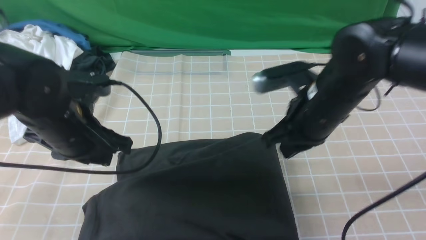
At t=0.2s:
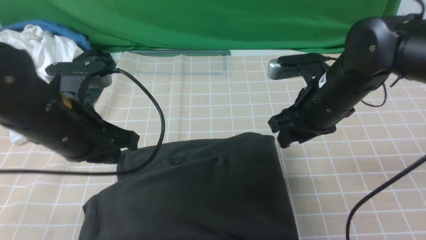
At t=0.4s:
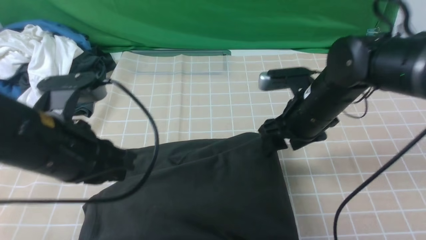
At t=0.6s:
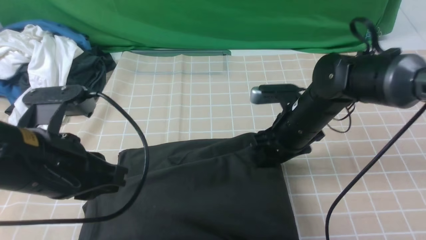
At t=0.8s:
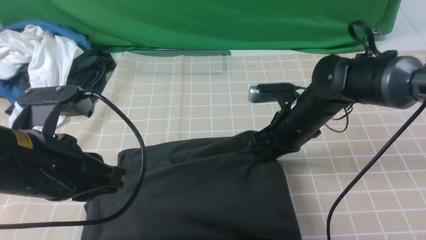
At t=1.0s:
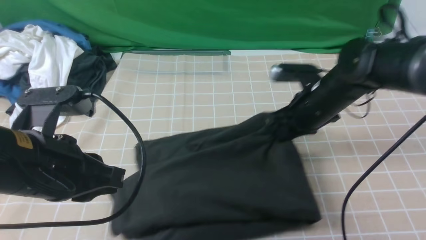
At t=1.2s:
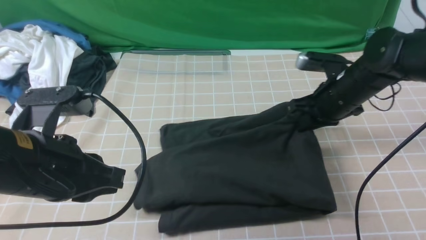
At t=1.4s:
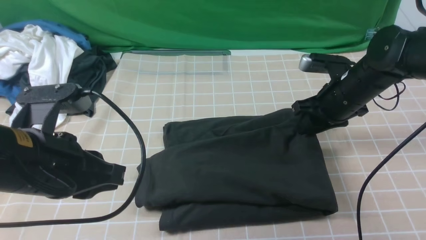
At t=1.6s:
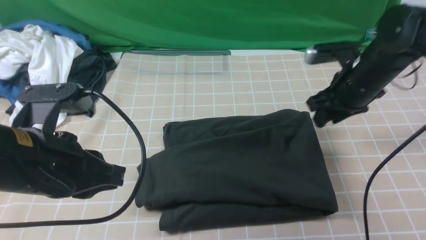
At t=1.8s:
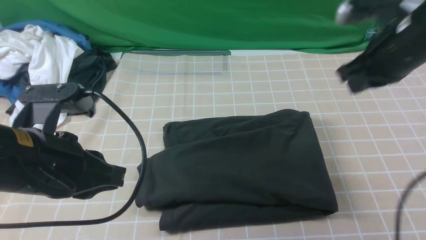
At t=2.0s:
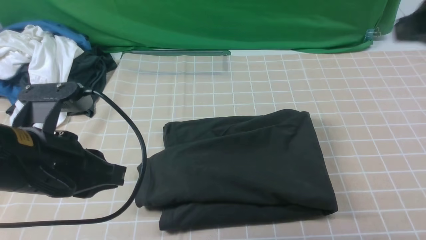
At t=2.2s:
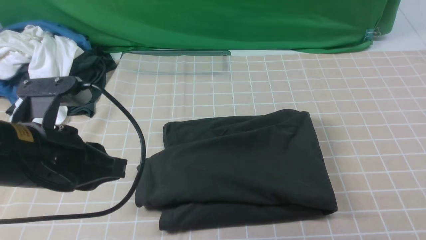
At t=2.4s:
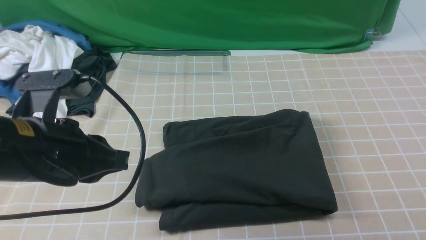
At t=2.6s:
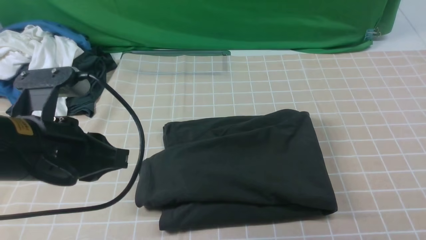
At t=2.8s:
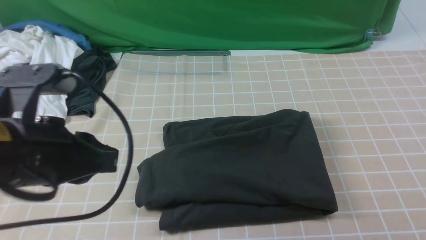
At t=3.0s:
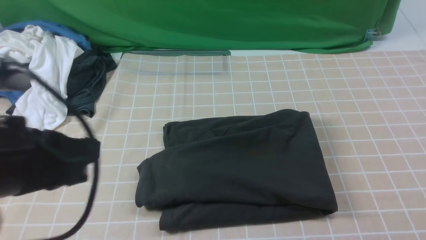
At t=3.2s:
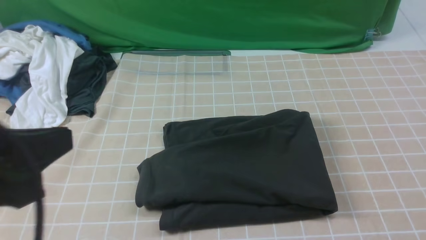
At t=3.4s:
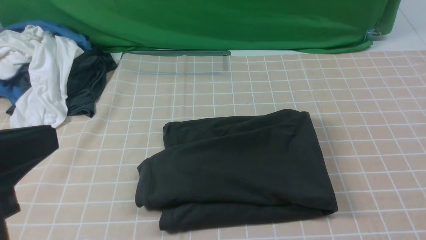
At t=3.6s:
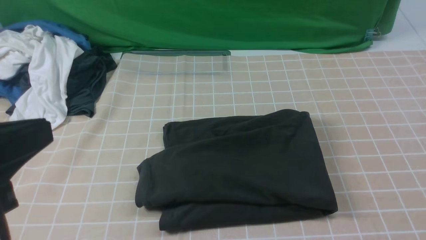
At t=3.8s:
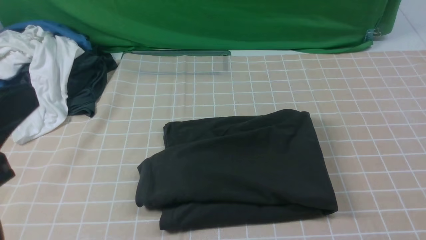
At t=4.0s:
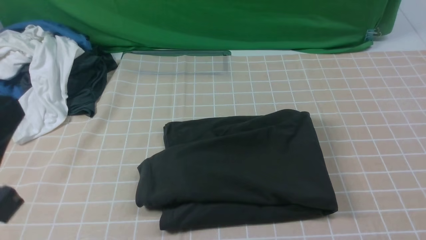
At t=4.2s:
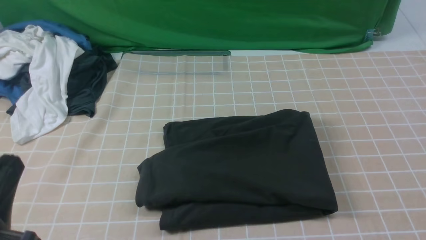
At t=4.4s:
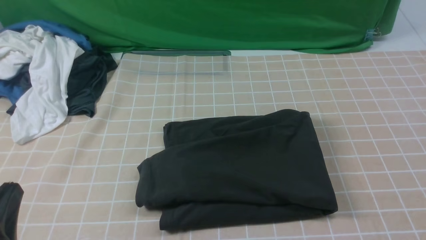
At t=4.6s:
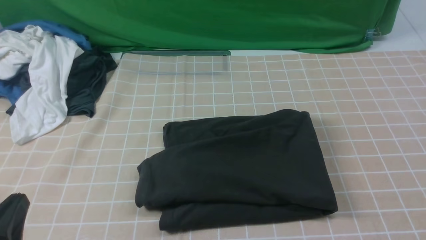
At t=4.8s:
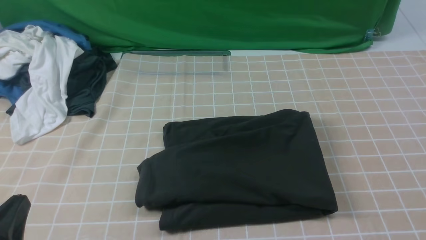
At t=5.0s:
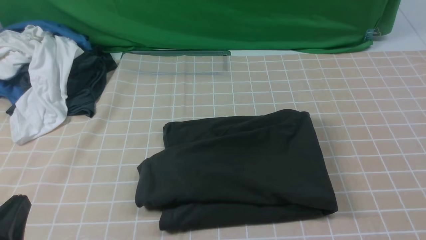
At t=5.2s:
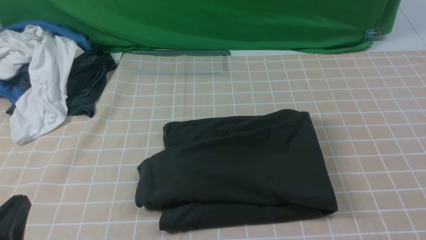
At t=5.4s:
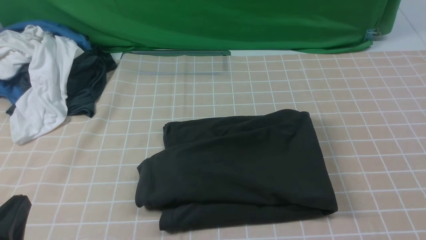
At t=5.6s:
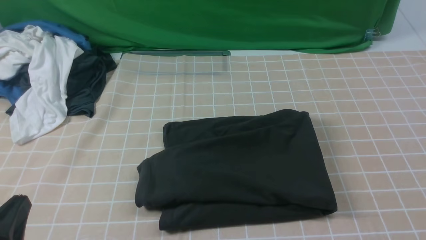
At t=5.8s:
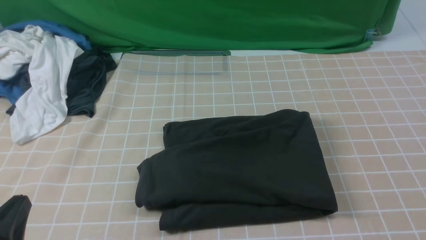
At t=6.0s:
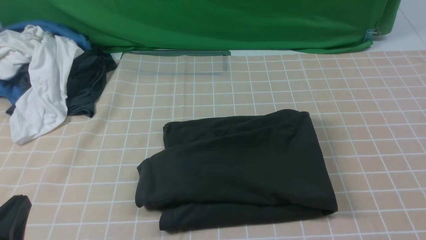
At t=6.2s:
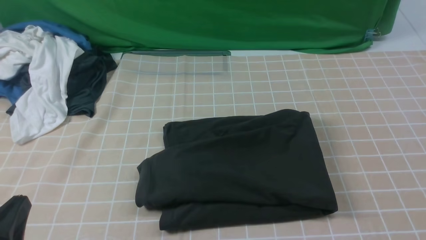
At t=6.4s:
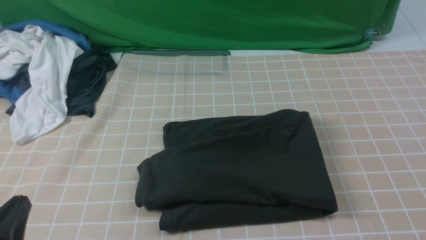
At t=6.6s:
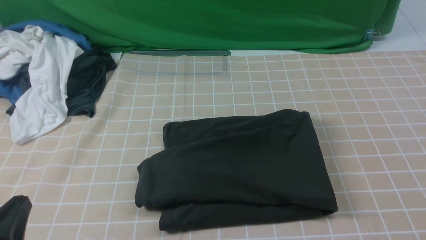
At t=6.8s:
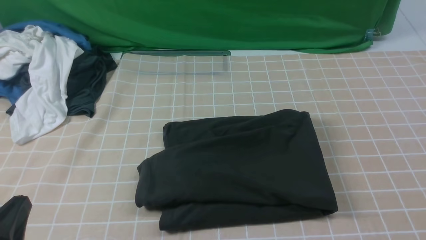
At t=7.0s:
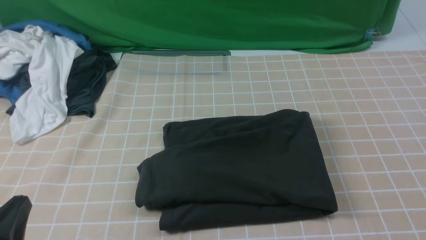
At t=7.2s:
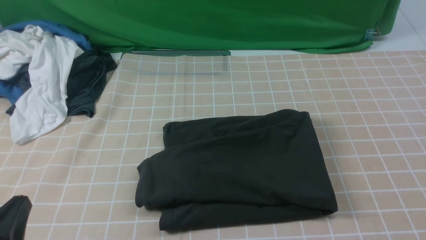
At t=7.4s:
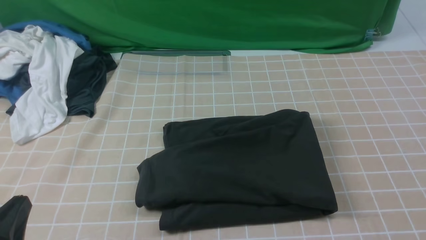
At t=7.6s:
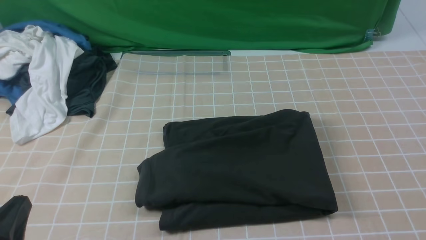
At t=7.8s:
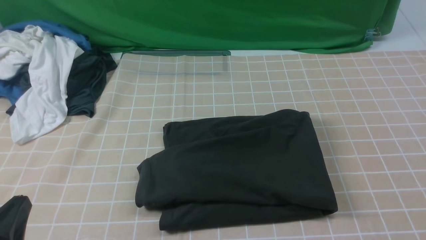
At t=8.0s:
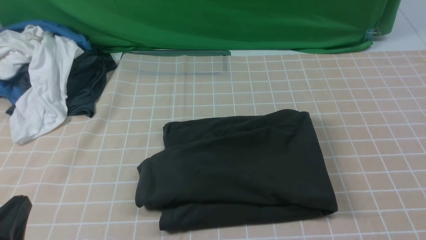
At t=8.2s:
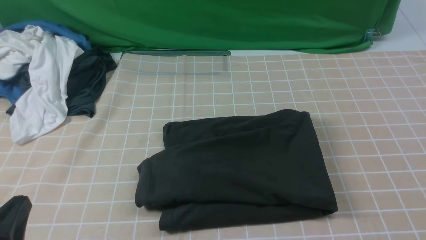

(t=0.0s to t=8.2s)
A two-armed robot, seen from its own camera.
t=0.0s - t=1.6s: The right gripper travels to the right and forward by roughly 10 cm, and opens, then closes once more; the left gripper is displaced backward by approximately 10 cm, and closes.
t=1.6s - t=3.2s: The left gripper goes roughly 10 cm backward and upward; the right gripper heads backward, covering approximately 35 cm, and closes its fingers.
t=3.2s - t=5.0s: The left gripper heads downward, covering roughly 15 cm.
t=6.6s - t=8.2s: Both grippers stay put.
